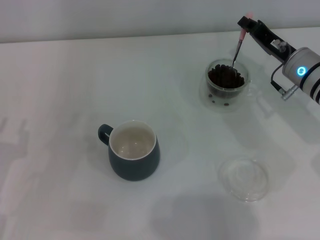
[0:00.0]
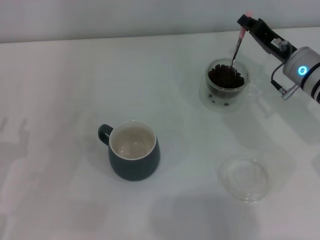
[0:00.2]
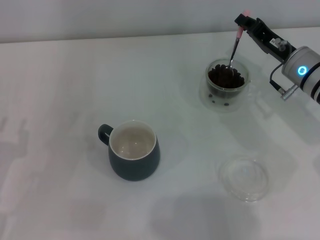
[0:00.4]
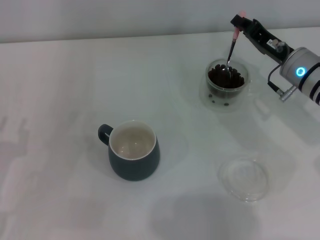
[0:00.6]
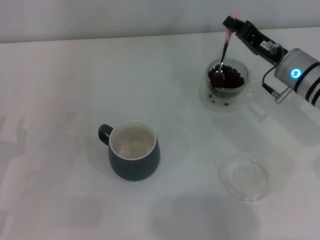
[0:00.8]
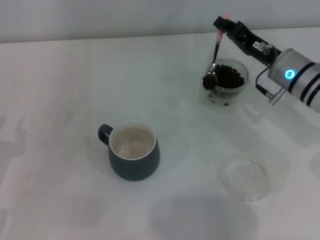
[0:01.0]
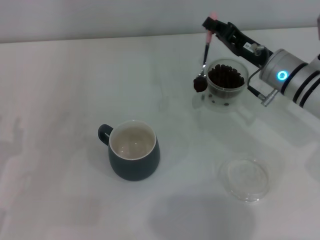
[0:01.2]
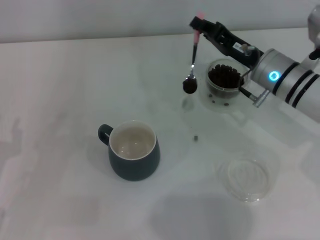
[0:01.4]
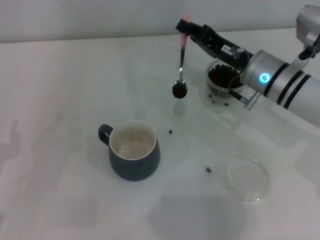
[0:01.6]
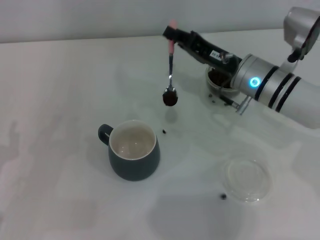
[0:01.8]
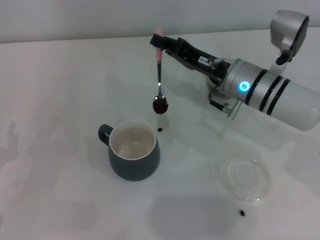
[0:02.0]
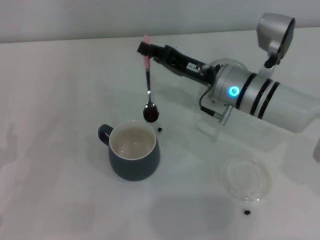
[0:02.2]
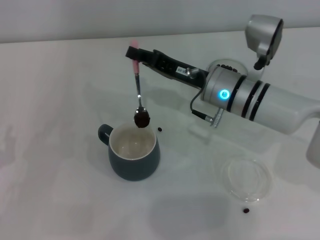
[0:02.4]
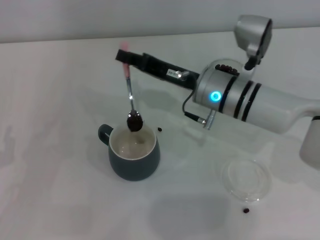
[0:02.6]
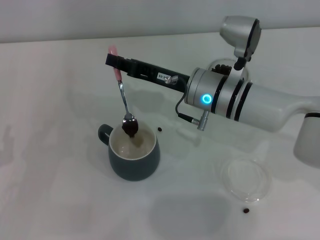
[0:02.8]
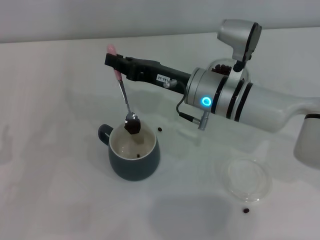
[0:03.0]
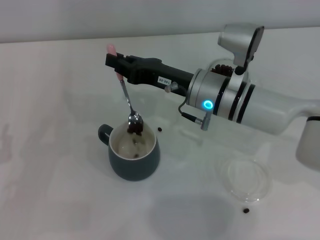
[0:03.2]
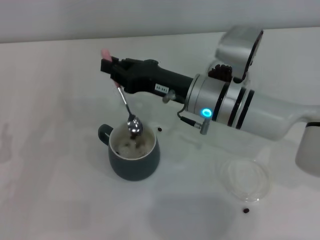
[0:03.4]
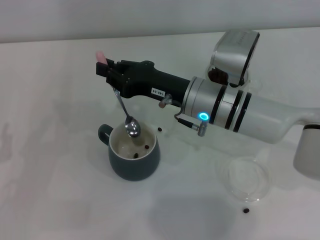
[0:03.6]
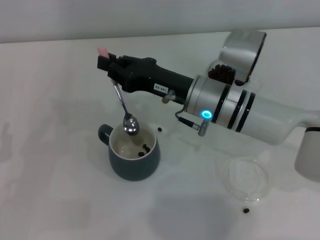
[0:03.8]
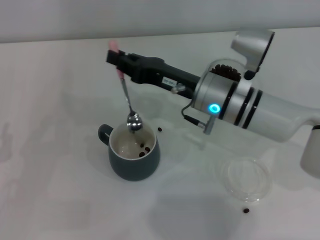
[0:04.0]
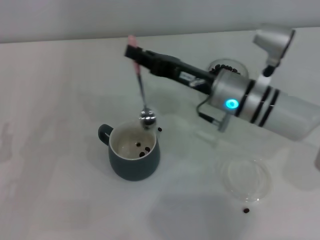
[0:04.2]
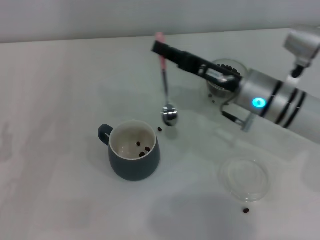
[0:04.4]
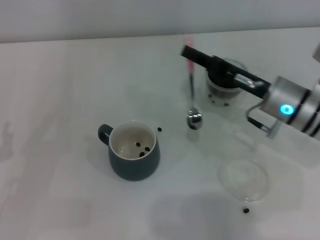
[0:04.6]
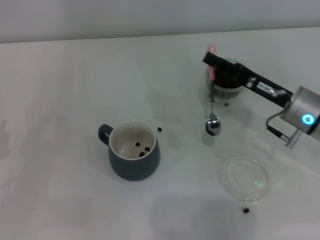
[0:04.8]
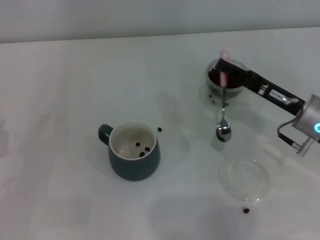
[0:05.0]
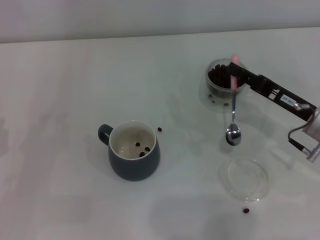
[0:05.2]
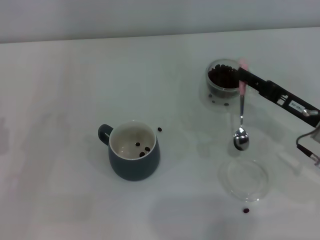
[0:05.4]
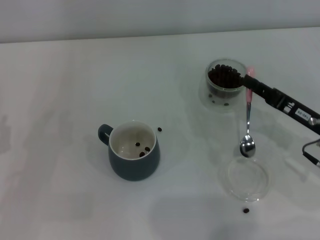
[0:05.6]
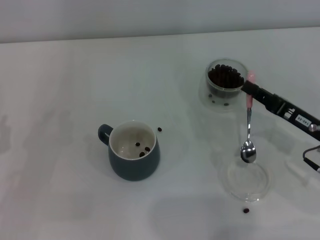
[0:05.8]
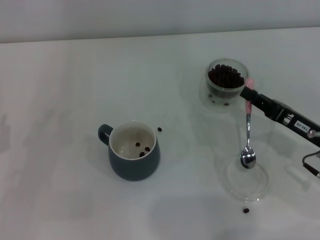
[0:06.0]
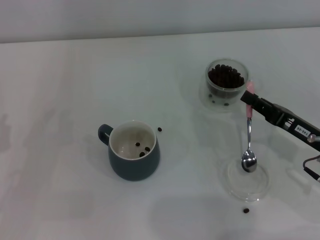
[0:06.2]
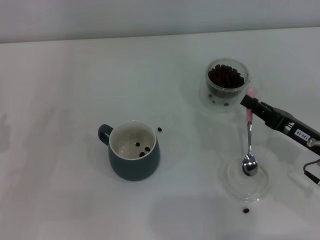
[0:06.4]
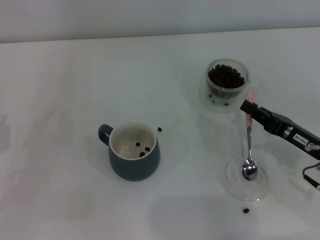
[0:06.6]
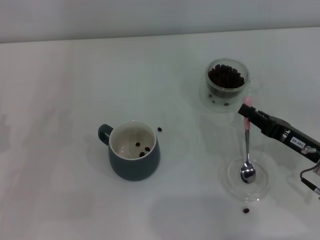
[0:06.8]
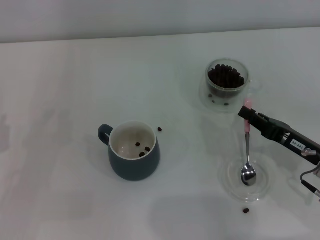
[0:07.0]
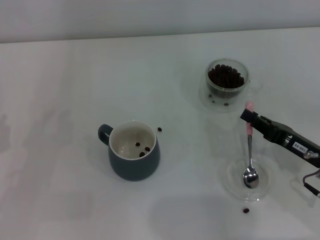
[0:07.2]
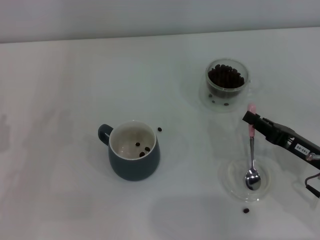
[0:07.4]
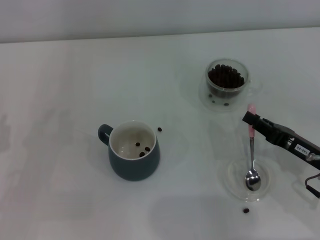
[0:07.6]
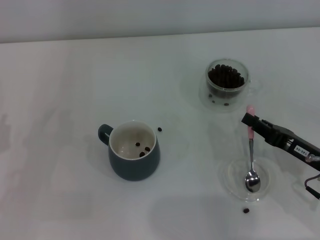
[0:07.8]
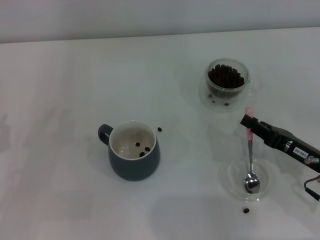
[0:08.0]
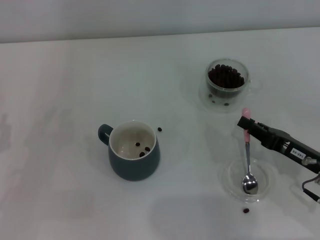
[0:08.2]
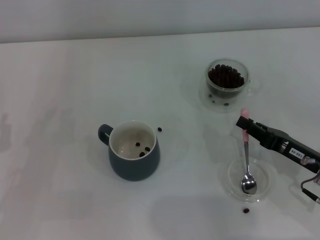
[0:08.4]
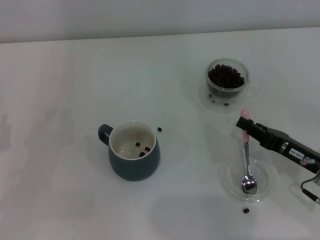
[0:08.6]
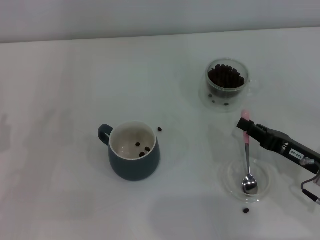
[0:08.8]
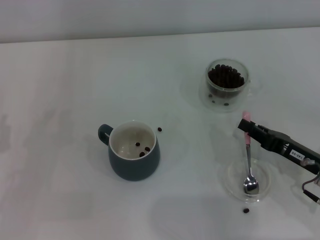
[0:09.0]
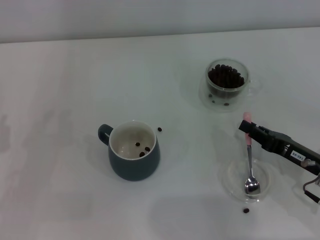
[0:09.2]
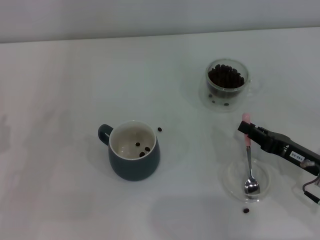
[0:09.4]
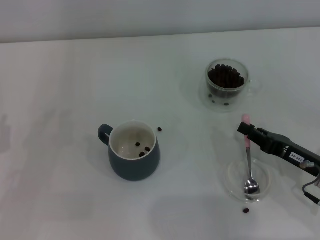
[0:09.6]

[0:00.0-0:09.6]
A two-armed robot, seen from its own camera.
Task of the whole recording: Use a pink spoon to take out the coffee beans from the glass and pour them into the gray cup.
Step, 0:00.0 to 0:04.0: Scoop a spoonful of beans into the cup with the right gripper.
0:00.0 to 0:01.6: The right gripper moves to the left, about 5 cm.
0:01.6 to 0:03.2: The right gripper is displaced to the left by roughly 10 cm.
0:03.2 to 0:04.8: The right gripper shifts roughly 15 cm to the right.
0:04.8 to 0:06.4: The right gripper is displaced backward by approximately 5 cm.
0:06.4 to 0:08.0: The grippers stay close to where they were, moving slightly.
0:08.0 to 0:09.6: The two grippers keep their place.

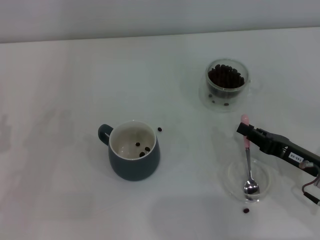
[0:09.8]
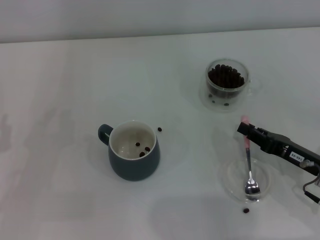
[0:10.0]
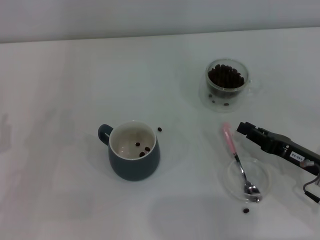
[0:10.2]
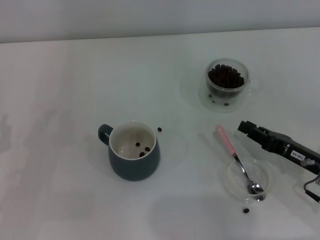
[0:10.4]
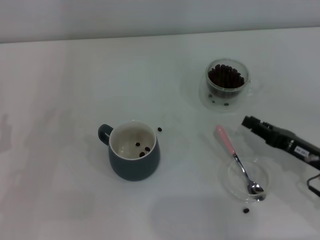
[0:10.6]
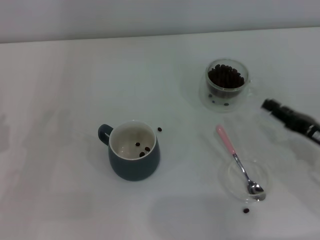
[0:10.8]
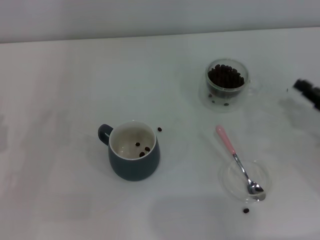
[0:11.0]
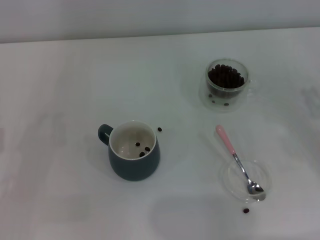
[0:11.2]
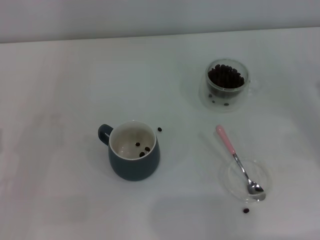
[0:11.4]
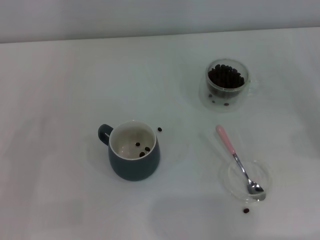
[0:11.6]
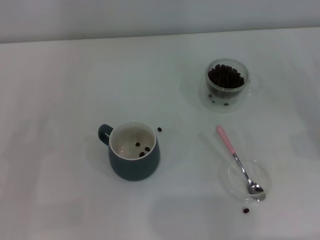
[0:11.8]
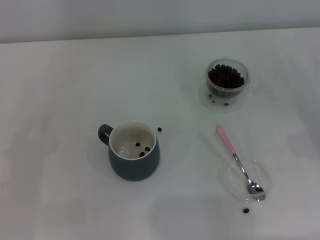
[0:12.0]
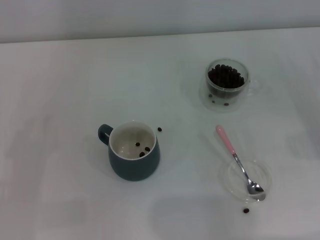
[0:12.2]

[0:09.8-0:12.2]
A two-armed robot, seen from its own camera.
Task of the whole recording: Use a pink spoon to take out the coffee beans from the glass and pour them into the gray cup.
0:09.8 to 0:11.0: The right gripper shifts some 5 cm to the right.
0:11.0 to 0:12.2: The right gripper is displaced to the right by roughly 5 cm.
